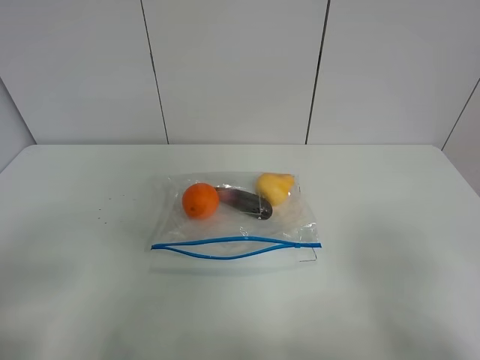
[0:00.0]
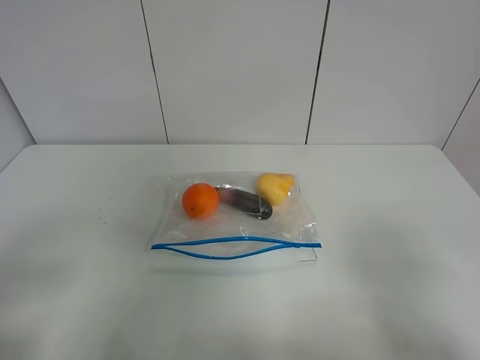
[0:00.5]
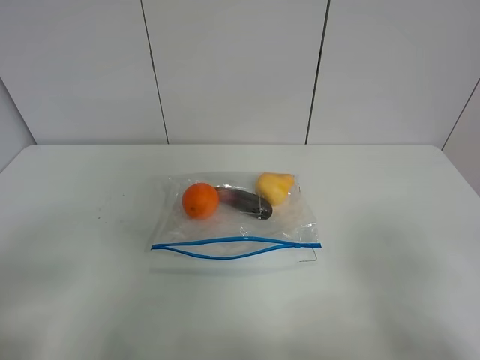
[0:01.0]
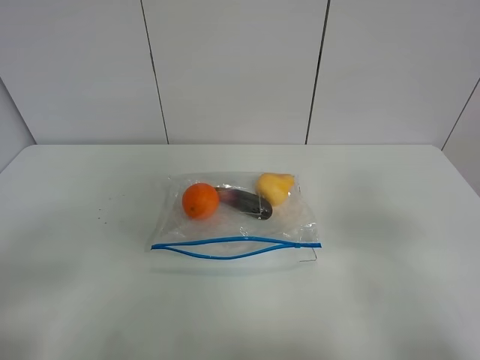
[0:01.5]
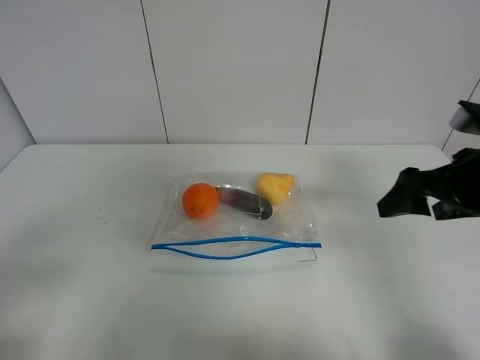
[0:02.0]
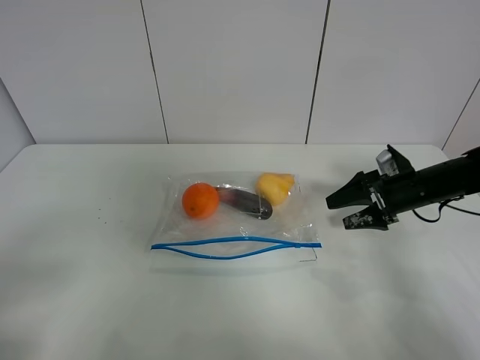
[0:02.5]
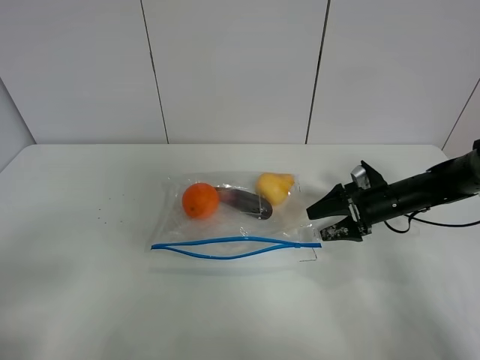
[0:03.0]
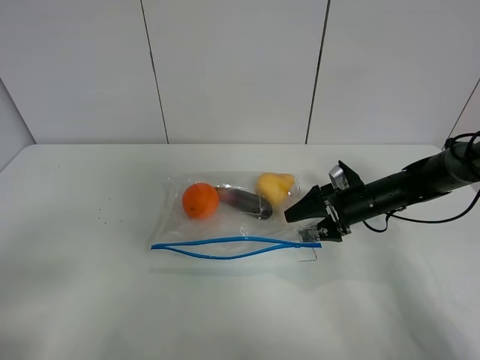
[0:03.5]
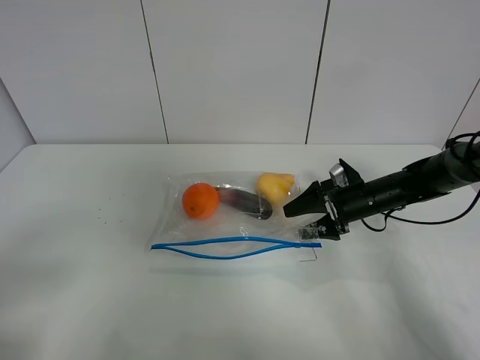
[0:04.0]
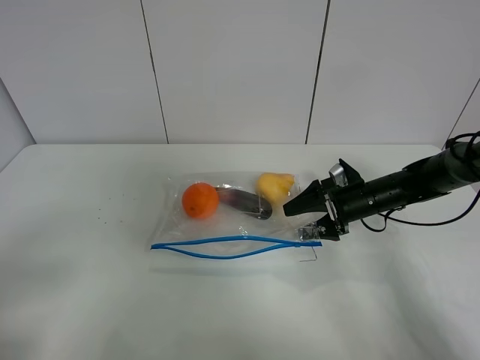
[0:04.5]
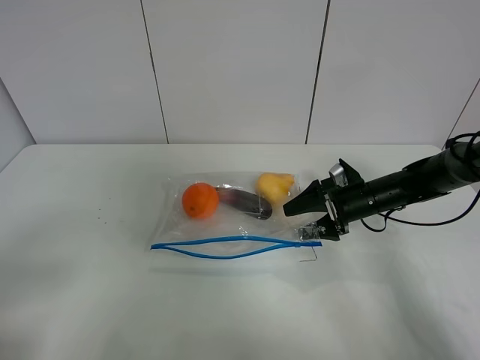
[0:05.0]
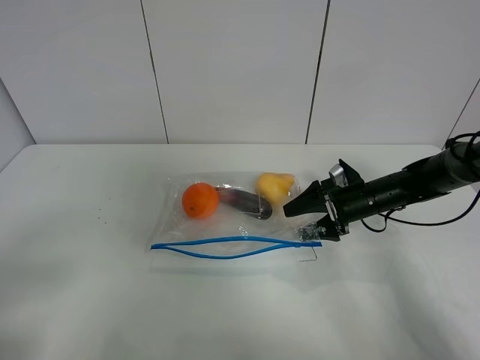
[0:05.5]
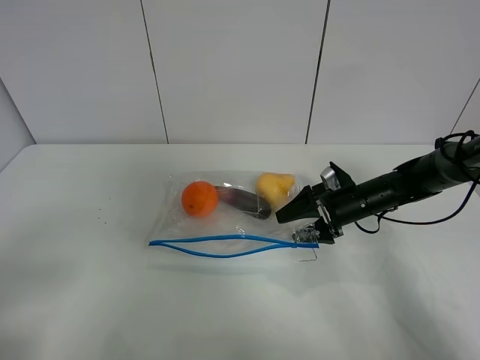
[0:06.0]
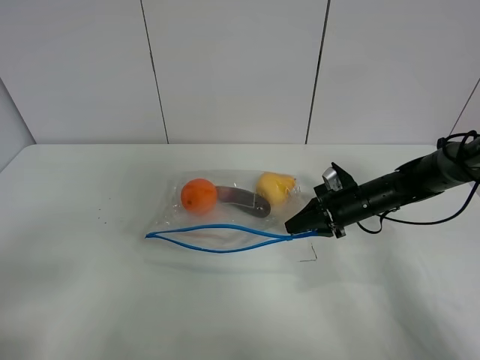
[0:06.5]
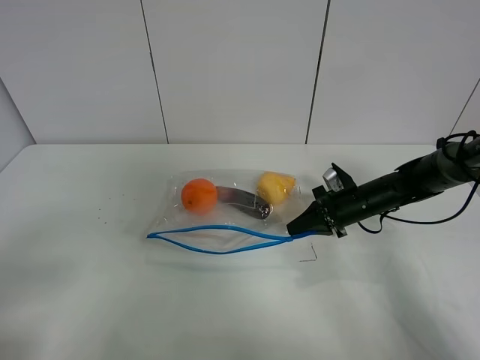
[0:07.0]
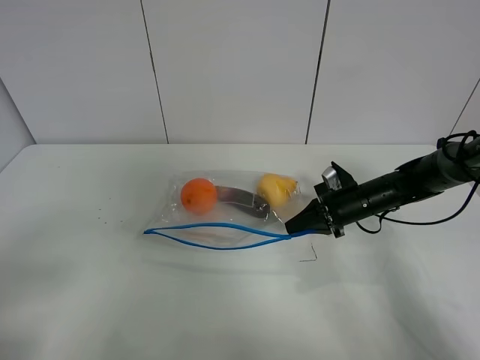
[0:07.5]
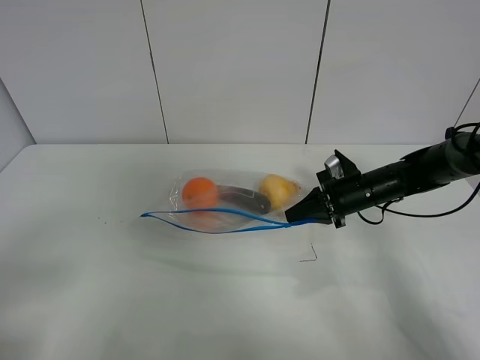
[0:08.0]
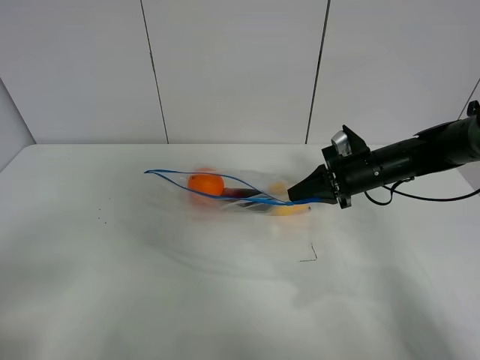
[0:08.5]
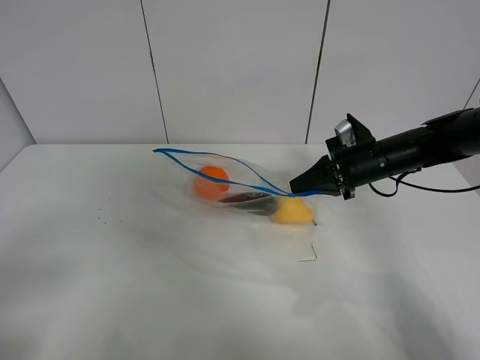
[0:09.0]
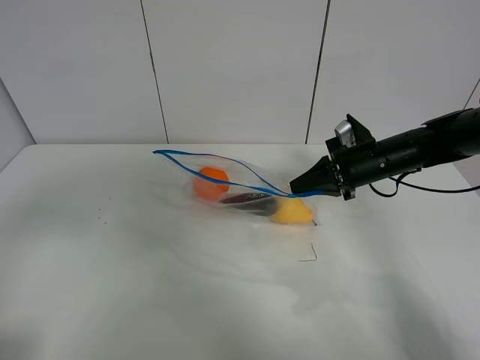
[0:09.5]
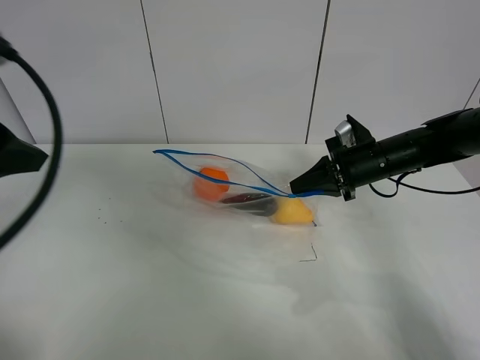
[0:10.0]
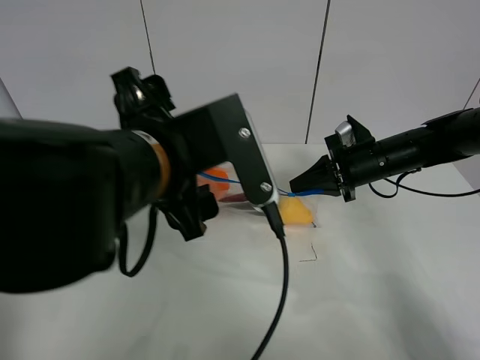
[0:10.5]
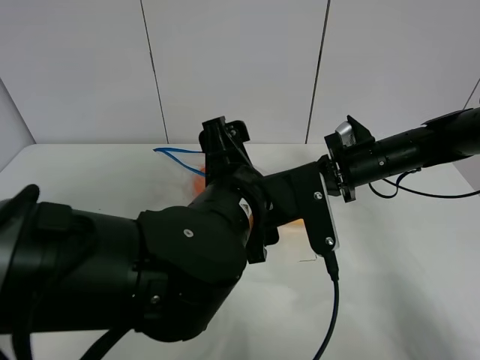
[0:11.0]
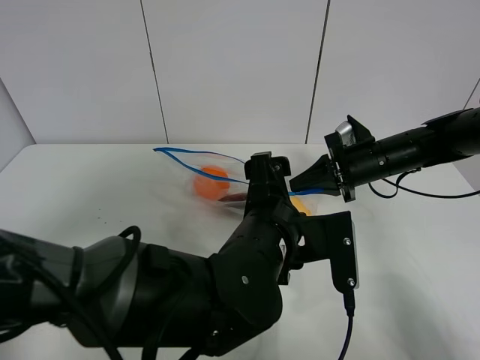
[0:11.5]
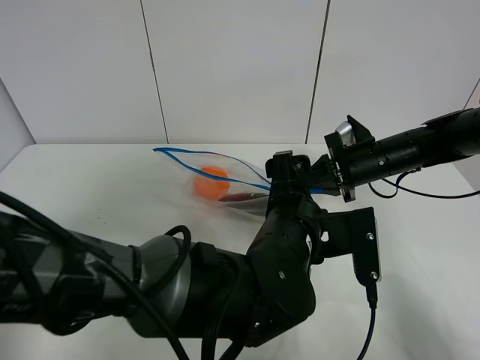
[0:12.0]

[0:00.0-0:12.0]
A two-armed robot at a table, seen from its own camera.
Step, 0:00.0 to 0:06.5: Grasp the fruit bag with right gripper.
Step, 0:07.0 to 0:08.5: Lift the fruit bag with your right gripper.
0:00.0 to 0:02.0: The right gripper heads forward, covering some 25 cm.
0:02.0 to 0:04.0: The right gripper heads downward and forward, covering approximately 25 cm.
0:04.0 to 0:06.0: The grippers move only a little.
0:06.0 to 0:08.0: The right gripper closes up.
0:08.0 to 0:10.0: The left gripper moves forward and upward, approximately 20 cm. Meanwhile the right gripper is displaced upward by roughly 5 cm.
0:10.0 to 0:12.0: The left gripper is displaced to the right and downward by about 35 cm.

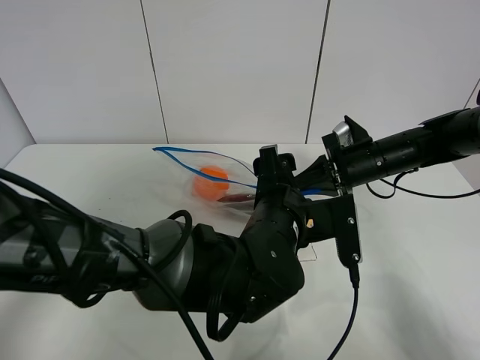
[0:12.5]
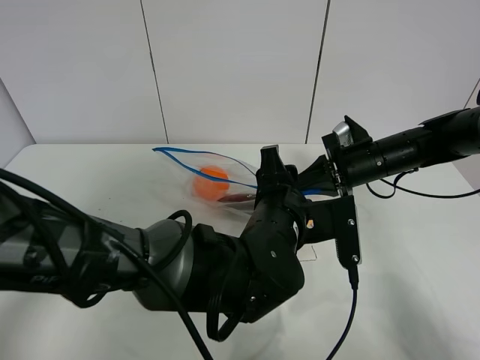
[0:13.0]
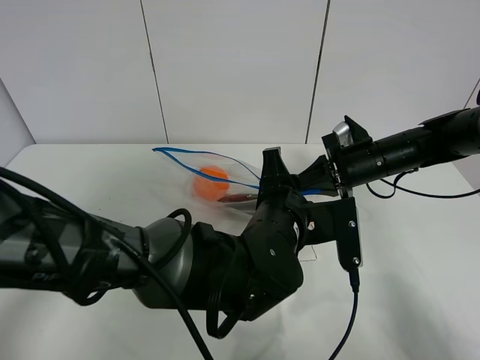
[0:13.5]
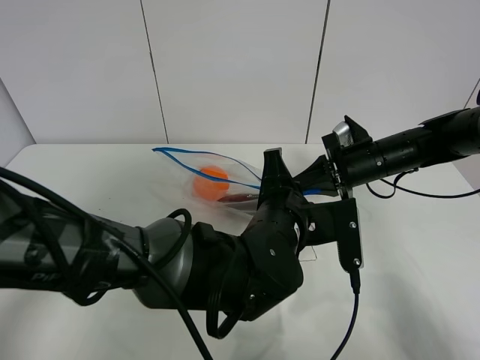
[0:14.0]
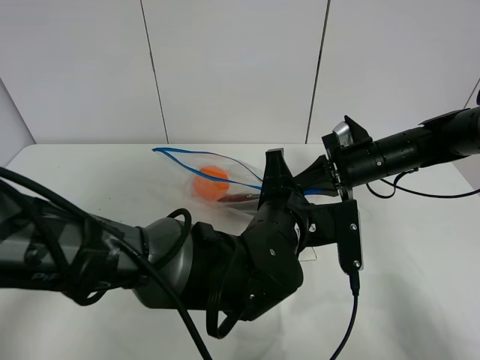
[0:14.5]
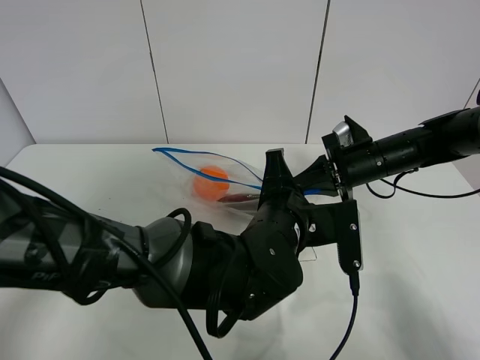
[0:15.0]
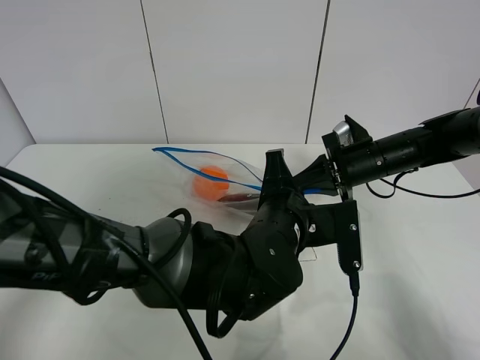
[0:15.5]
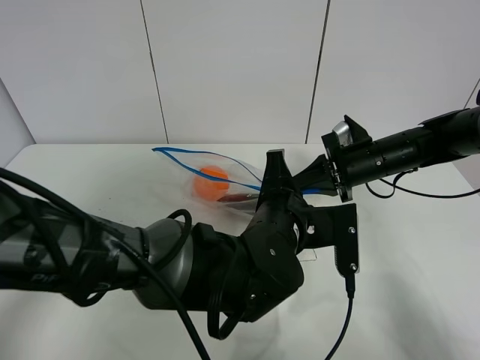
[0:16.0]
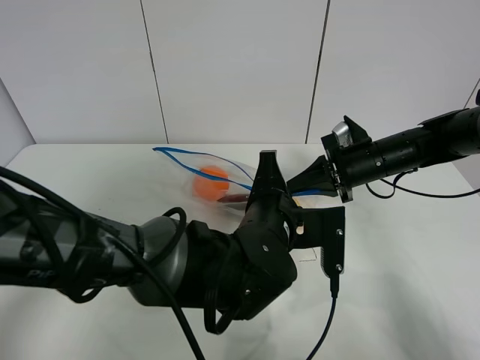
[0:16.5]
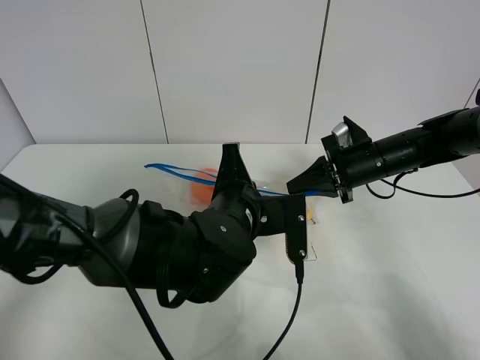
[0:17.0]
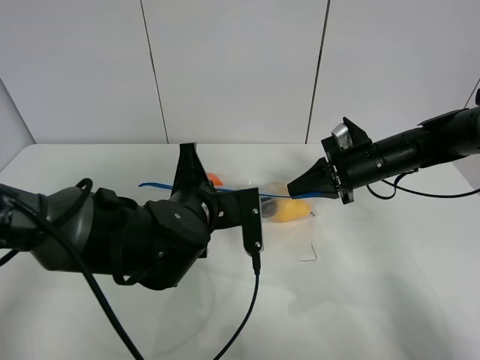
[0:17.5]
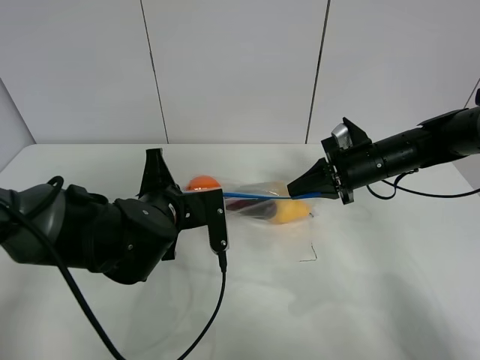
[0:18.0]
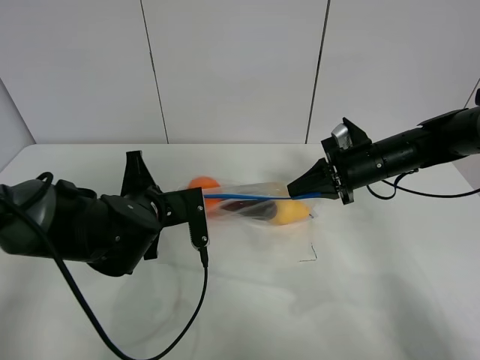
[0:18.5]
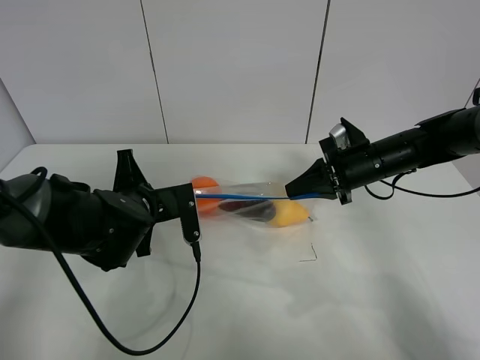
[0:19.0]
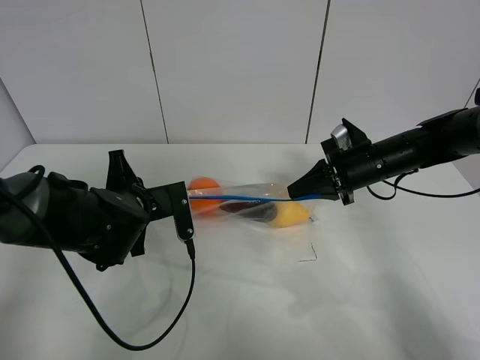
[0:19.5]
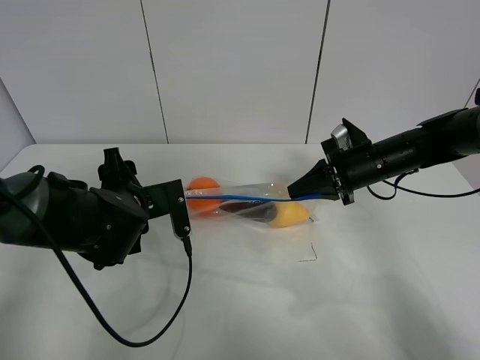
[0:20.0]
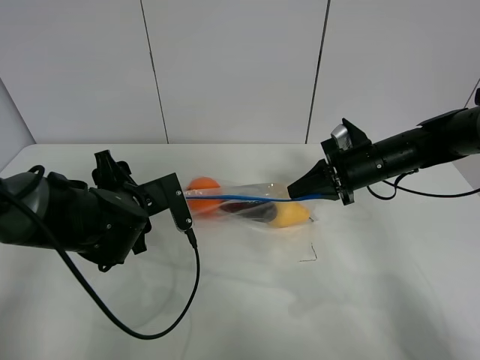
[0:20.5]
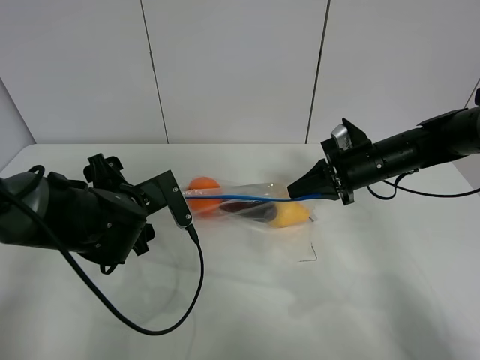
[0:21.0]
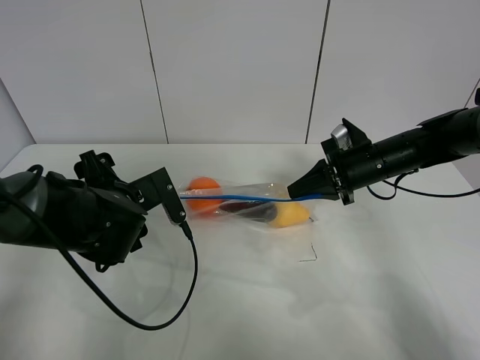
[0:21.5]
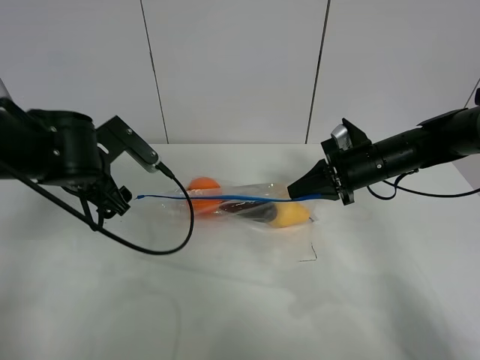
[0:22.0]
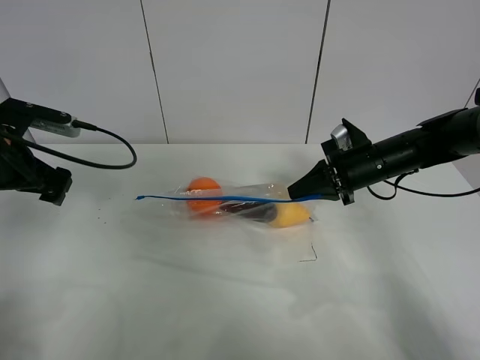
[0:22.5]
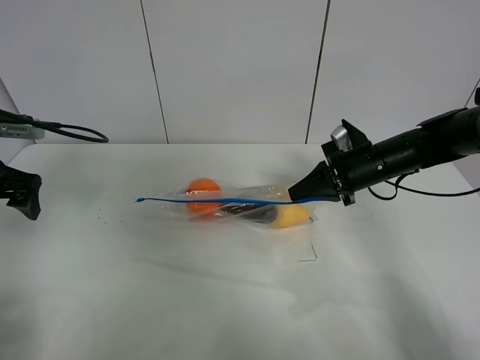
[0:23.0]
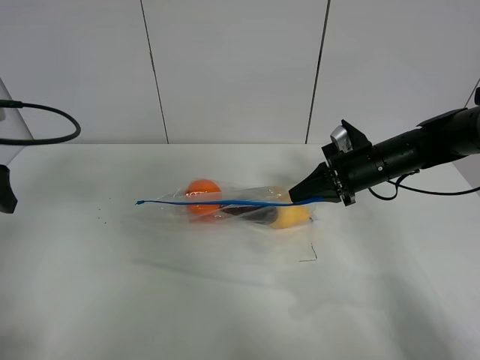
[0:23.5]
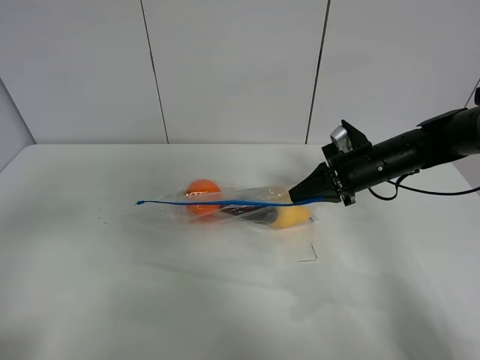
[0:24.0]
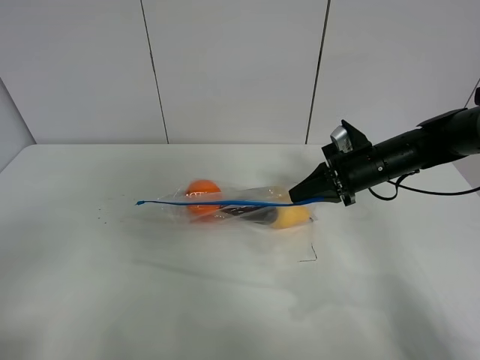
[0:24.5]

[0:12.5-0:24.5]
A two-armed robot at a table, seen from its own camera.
Step, 0:12.5 to 0:20.0: Pull the fruit bag with left gripper.
0:12.5 to 0:14.5: The left gripper closes.
0:14.5 to 0:16.5: There are only small adjustments of the grippers.
0:16.5 to 0:18.5: The left gripper goes approximately 15 cm to the left.
0:18.5 to 0:20.5: The left gripper opens its fingers.
0:20.5 to 0:22.5: The left gripper is displaced to the left and upward by roughly 20 cm.
0:22.5 to 0:24.5: The left gripper moves backward, some 30 cm.

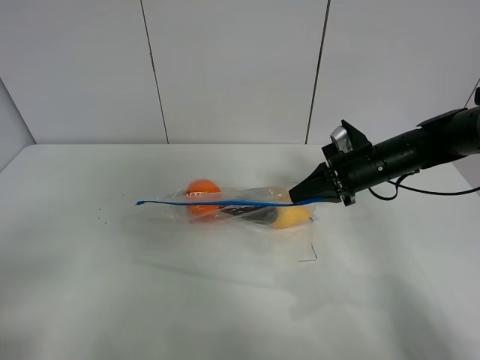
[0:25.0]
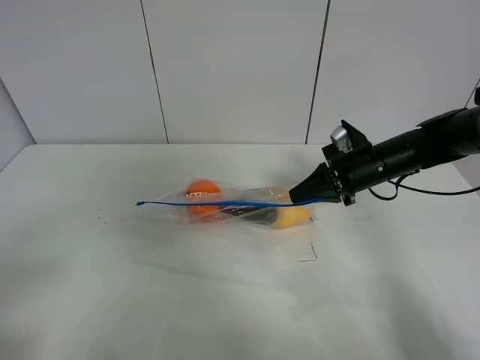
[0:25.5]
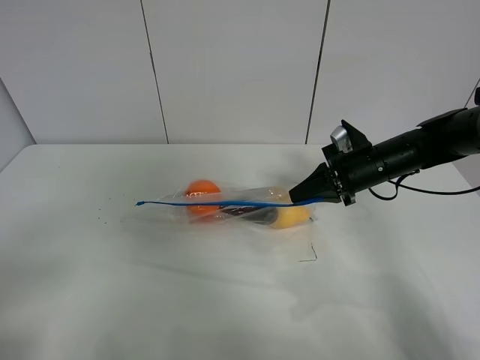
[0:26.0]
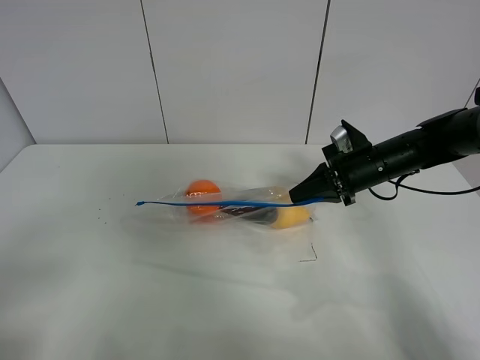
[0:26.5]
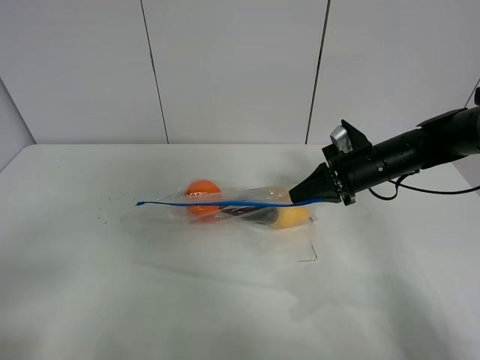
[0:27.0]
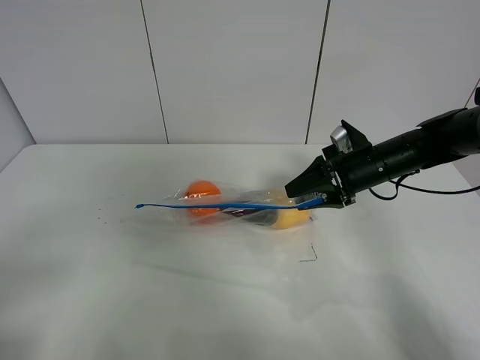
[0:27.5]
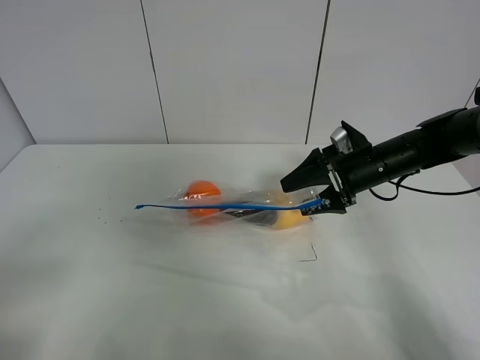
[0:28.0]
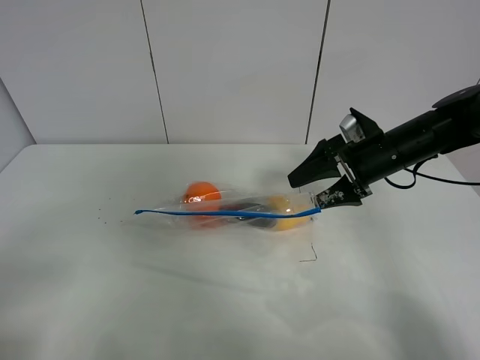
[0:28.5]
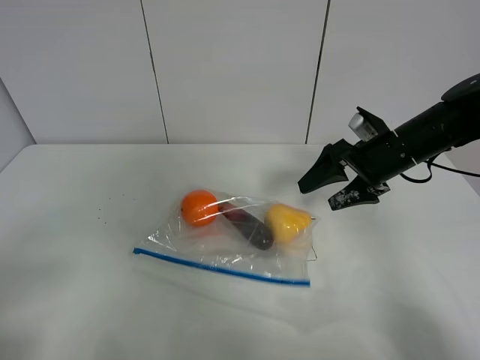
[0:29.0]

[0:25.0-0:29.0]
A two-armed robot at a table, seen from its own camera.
Step, 0:25.0 to 0:29.0: Place the fruit bag with right gripper.
0:25.0 to 0:27.0: Both grippers stay put.
0:27.0 to 0:29.0: The right gripper opens its fingers.
